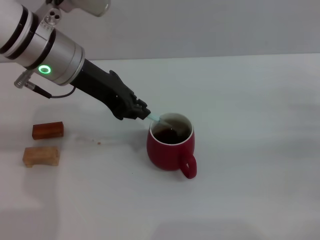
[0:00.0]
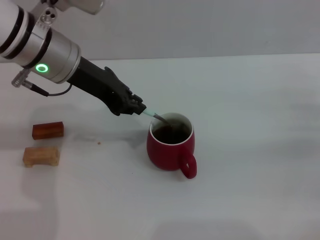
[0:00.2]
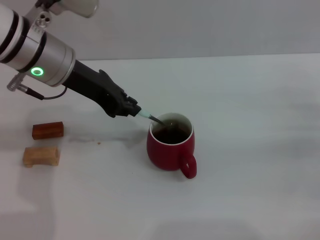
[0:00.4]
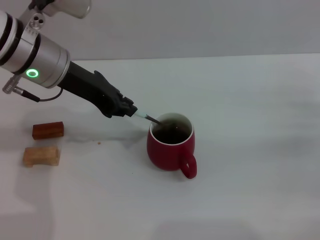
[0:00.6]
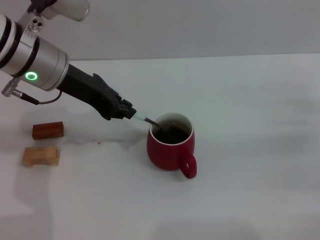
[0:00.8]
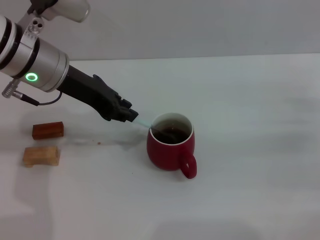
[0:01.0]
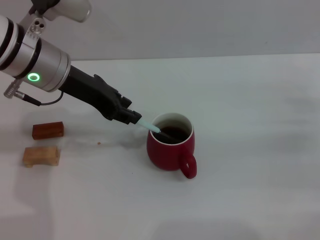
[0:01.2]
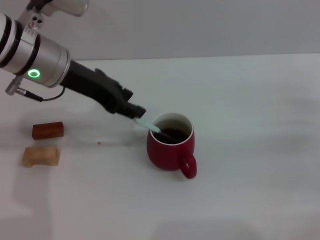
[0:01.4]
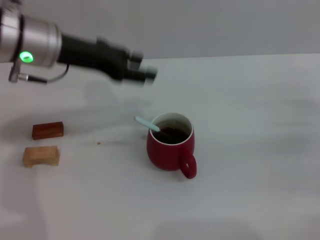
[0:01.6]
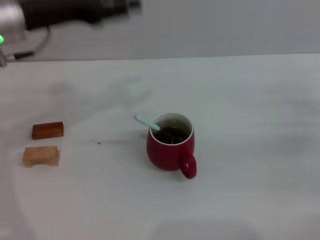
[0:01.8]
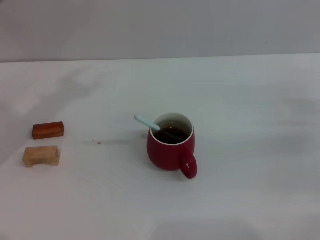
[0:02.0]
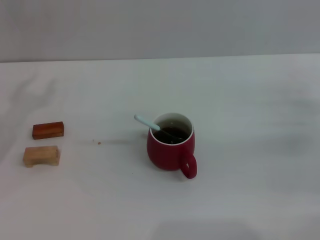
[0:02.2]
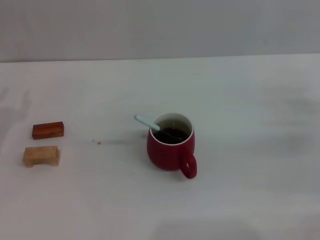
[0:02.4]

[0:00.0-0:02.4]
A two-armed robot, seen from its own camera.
Task of the whole recording: Move the red cup to the center, lift the blue spoon, stir it three times in the cup, and put the spoon into the cup.
0:00.0 to 0:01.2: The grippers move only a little.
0:01.2 to 0:02.4: The left gripper travels to the left, backward and downward by approximately 20 cm, and opens its fingers.

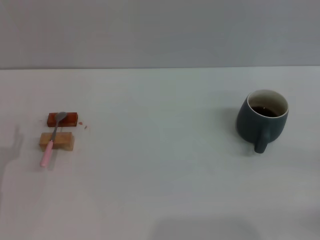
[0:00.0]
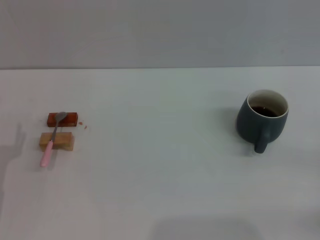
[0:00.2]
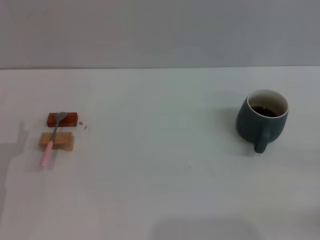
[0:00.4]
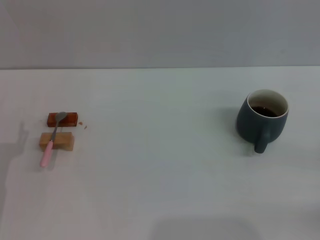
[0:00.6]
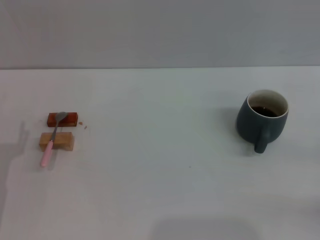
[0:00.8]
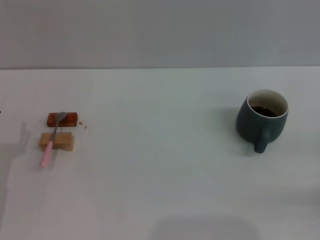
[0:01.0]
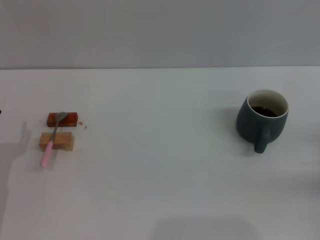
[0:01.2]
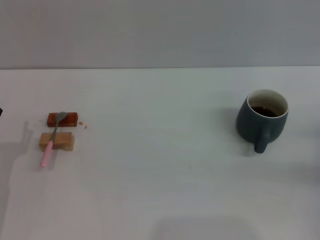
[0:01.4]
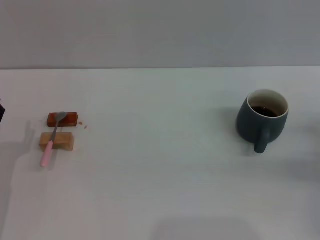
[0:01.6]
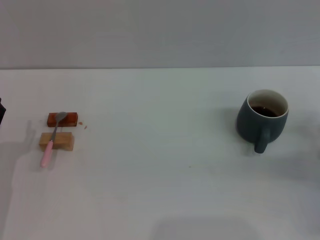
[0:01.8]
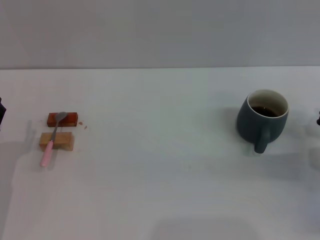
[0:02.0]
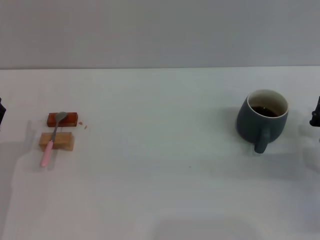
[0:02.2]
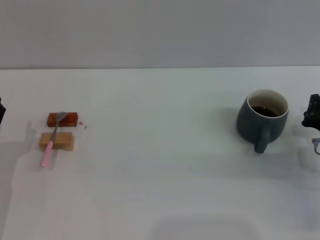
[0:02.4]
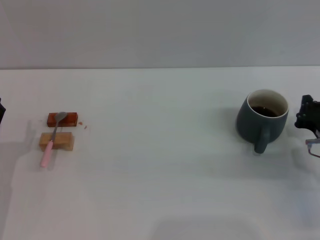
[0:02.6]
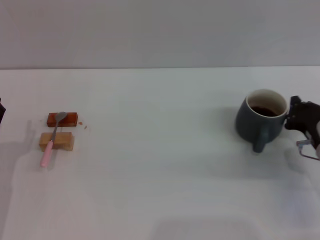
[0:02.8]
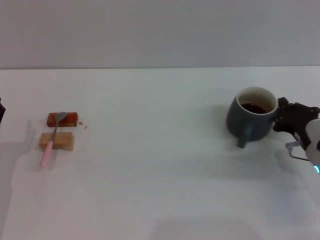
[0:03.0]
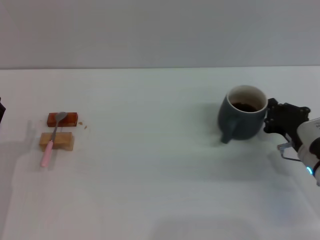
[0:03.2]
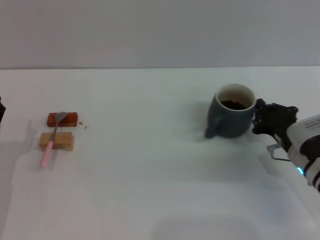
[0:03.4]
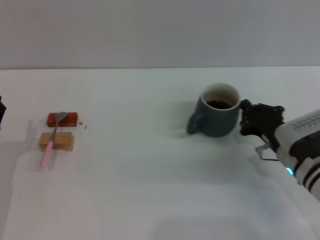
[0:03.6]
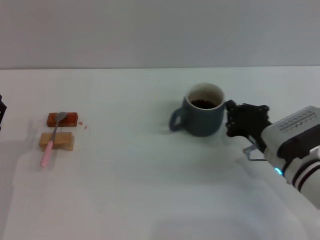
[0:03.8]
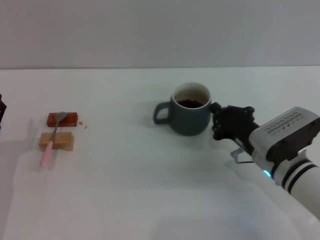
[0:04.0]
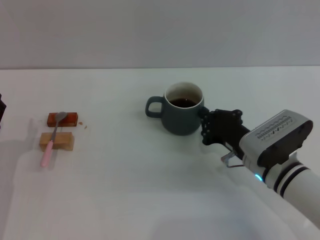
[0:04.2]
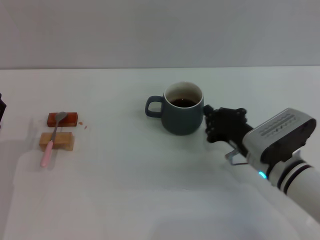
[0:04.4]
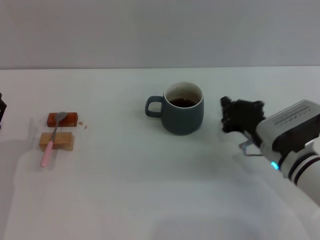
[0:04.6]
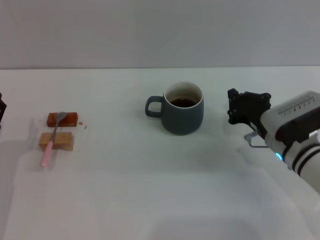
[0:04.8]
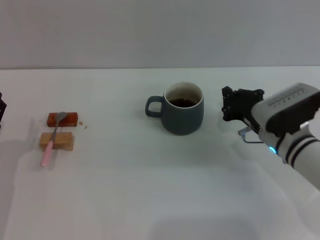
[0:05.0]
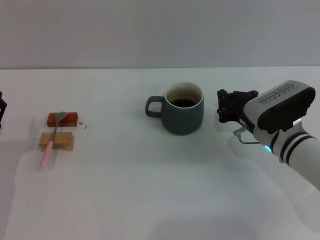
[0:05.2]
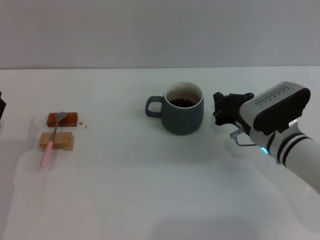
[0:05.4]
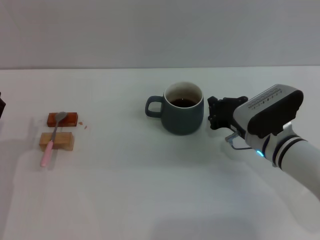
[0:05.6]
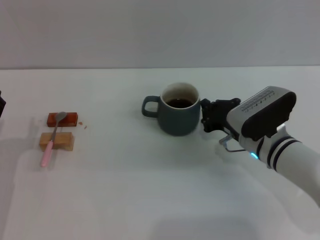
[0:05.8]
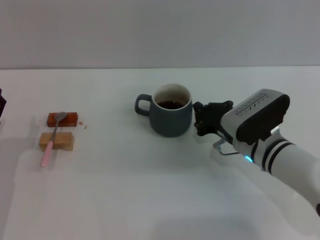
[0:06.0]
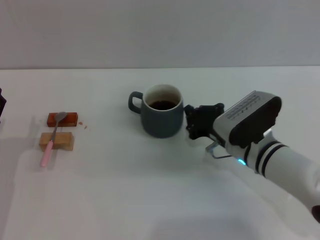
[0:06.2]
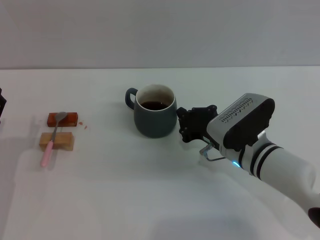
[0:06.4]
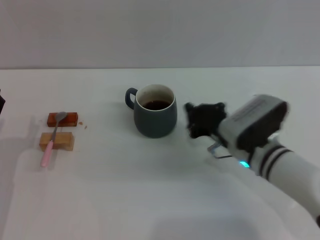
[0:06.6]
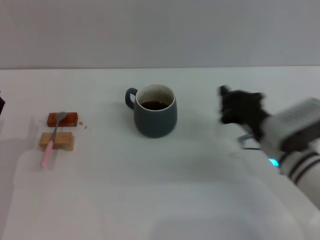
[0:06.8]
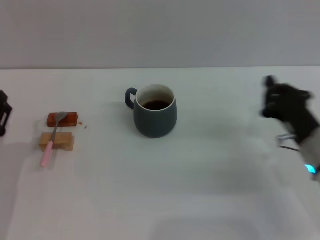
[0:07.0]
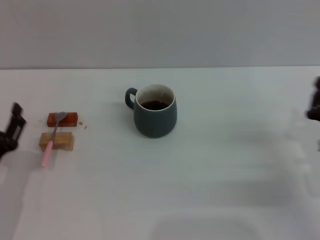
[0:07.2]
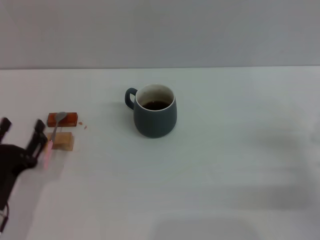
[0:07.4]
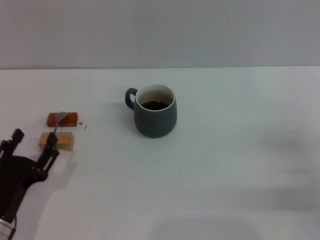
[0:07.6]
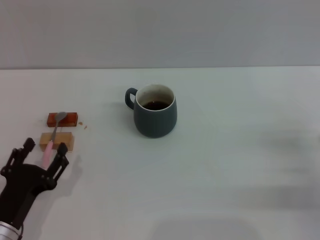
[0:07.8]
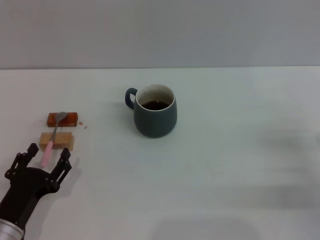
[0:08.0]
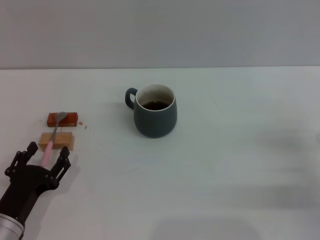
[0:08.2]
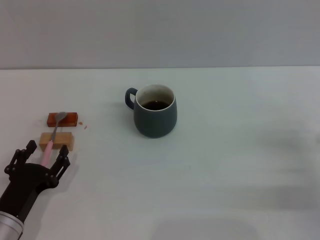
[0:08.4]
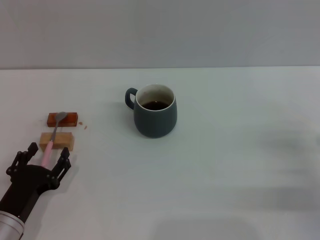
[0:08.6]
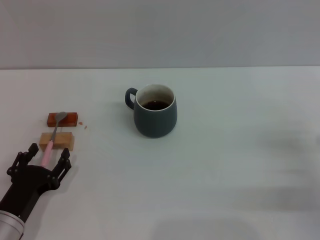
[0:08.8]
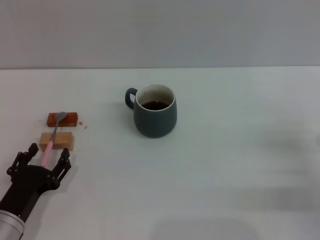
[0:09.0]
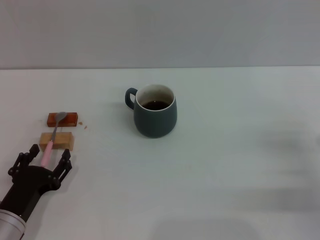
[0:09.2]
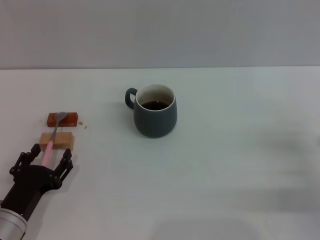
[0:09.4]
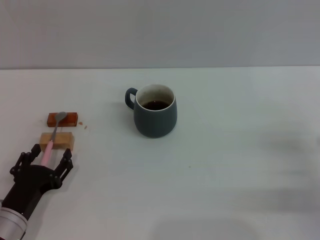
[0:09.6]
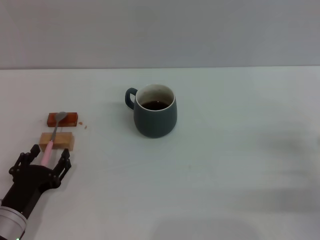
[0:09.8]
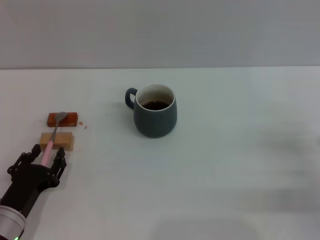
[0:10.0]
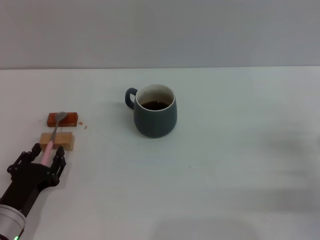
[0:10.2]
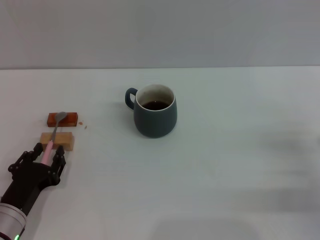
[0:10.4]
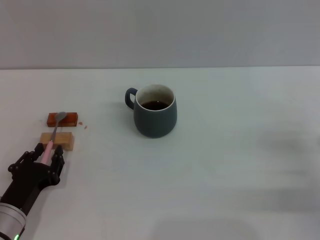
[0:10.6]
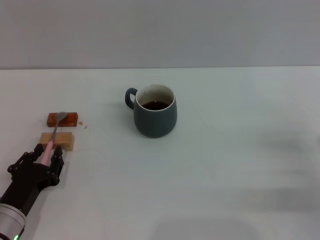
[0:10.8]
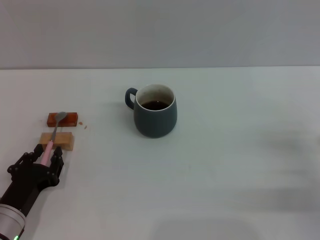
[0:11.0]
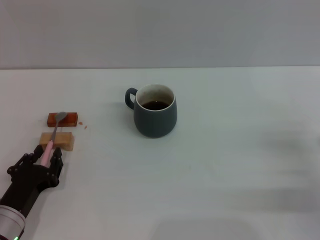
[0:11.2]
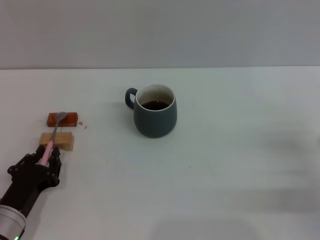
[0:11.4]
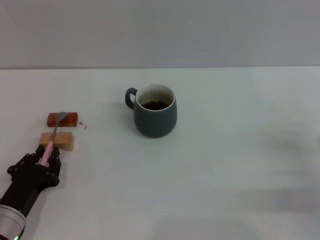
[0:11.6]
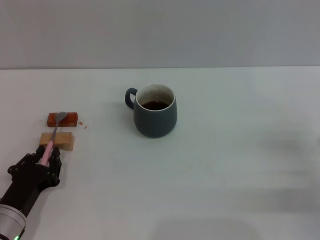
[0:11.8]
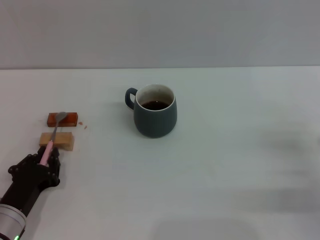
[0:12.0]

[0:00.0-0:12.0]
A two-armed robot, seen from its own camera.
Task of the whole recording: Move the grey cup to the center, lift the pink spoon, stir it three times in the cup, and put the spoon into the cup.
Step, 0:00.0 to 0:07.4: Move the cup with coffee to the center of view with the right gripper.
0:00.0 to 0:01.6: The right gripper shifts roughly 10 cm forward.
0:01.6 to 0:03.0: The right gripper moves to the left, approximately 10 cm.
0:03.0 to 0:04.4: The right gripper travels to the left by about 10 cm.
0:04.4 to 0:06.0: The grippers make only small movements.
0:06.0 to 0:07.6: The right gripper shifts approximately 20 cm to the right and backward; the left gripper travels backward by roughly 5 cm.
0:07.6 to 0:09.0: The grippers make only small movements.
0:09.0 to 0:10.4: The two grippers keep their place.
0:10.4 to 0:12.0: The left gripper closes its fingers.

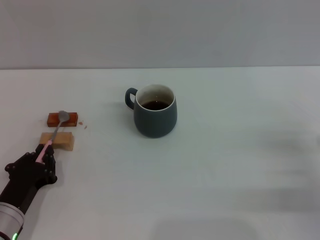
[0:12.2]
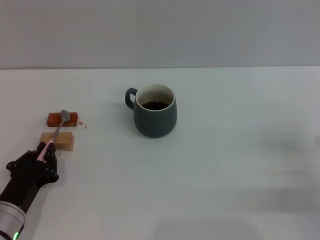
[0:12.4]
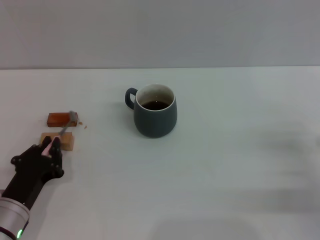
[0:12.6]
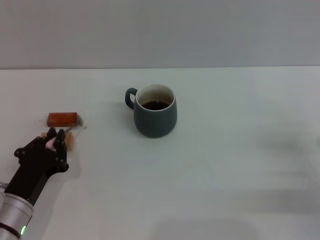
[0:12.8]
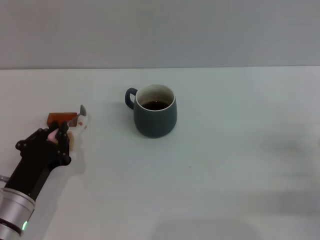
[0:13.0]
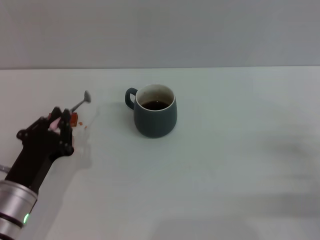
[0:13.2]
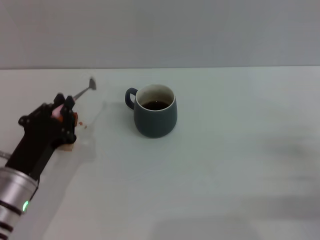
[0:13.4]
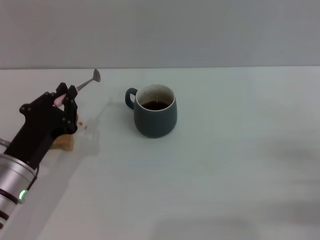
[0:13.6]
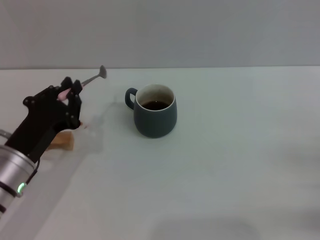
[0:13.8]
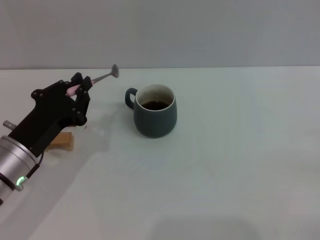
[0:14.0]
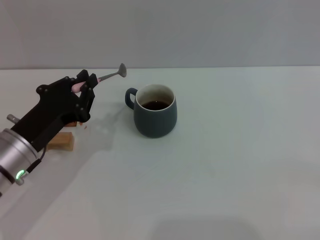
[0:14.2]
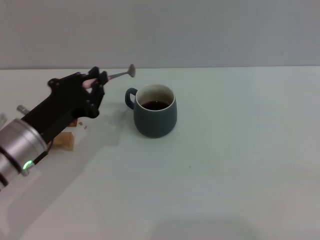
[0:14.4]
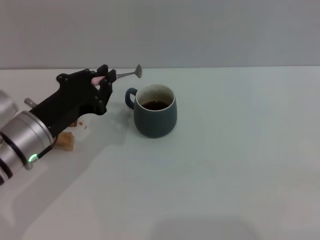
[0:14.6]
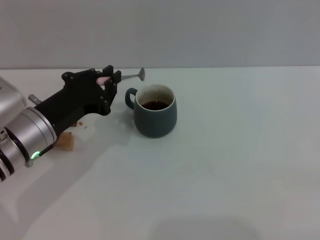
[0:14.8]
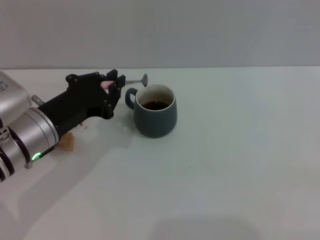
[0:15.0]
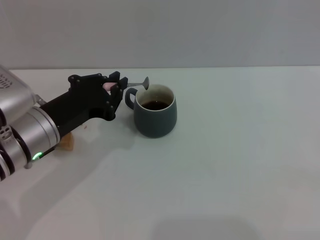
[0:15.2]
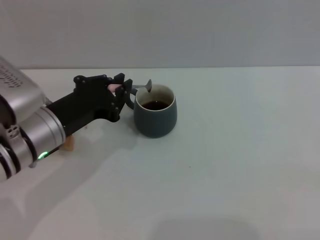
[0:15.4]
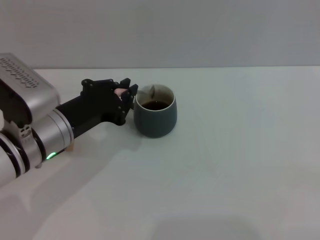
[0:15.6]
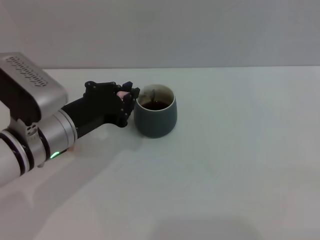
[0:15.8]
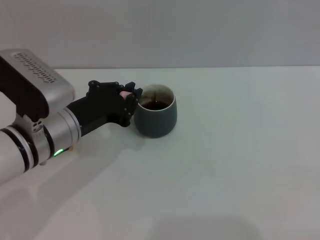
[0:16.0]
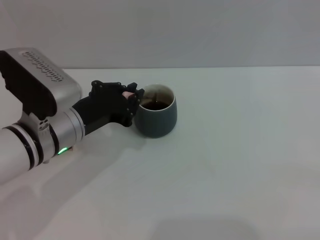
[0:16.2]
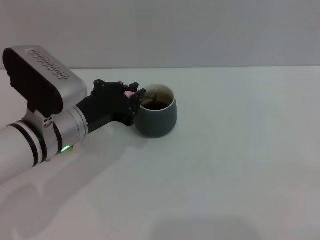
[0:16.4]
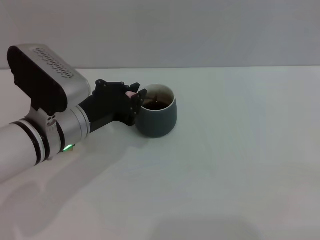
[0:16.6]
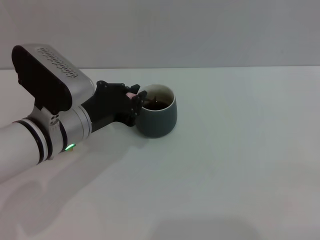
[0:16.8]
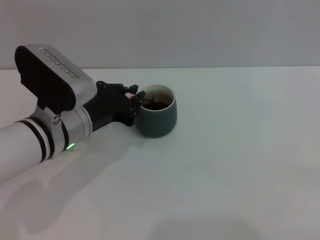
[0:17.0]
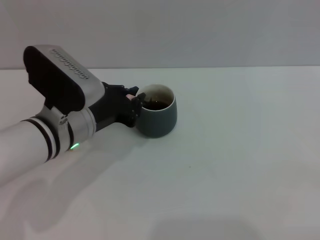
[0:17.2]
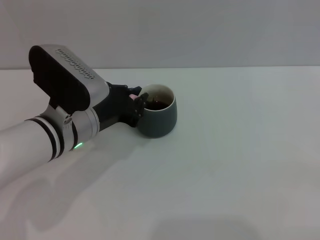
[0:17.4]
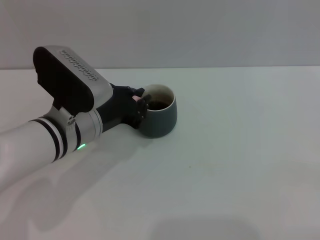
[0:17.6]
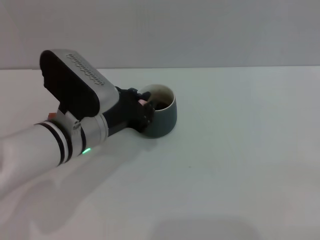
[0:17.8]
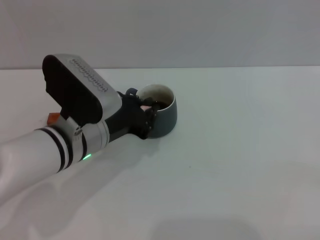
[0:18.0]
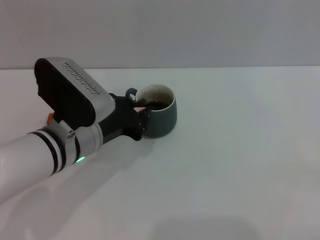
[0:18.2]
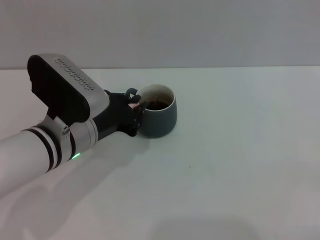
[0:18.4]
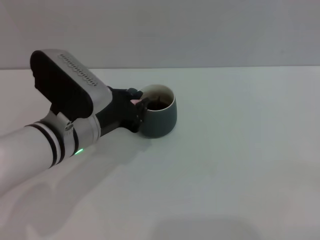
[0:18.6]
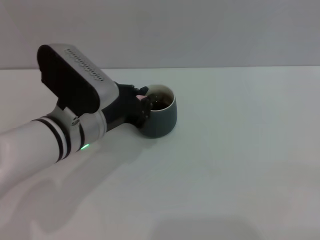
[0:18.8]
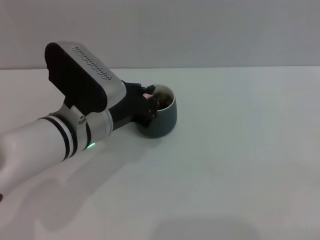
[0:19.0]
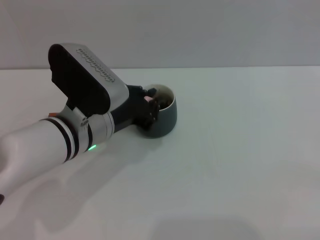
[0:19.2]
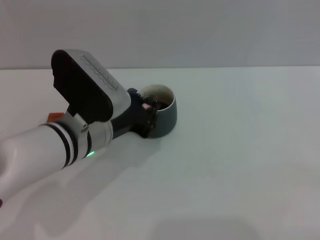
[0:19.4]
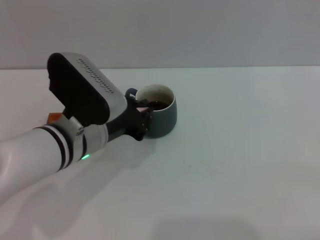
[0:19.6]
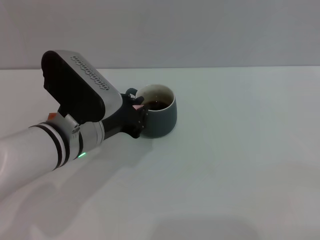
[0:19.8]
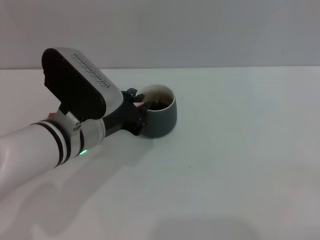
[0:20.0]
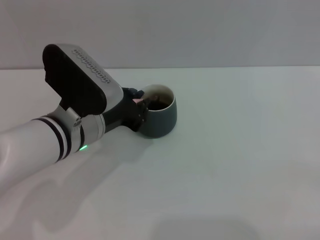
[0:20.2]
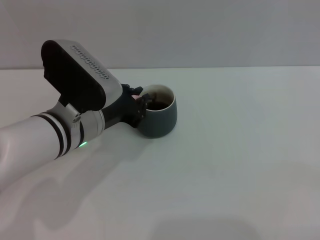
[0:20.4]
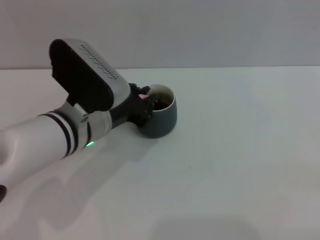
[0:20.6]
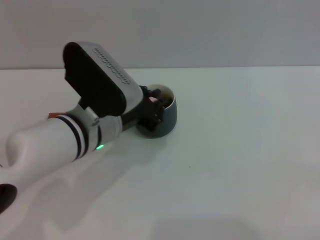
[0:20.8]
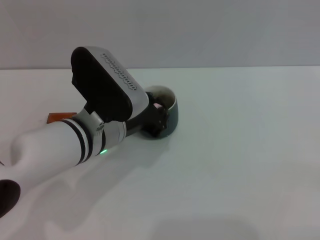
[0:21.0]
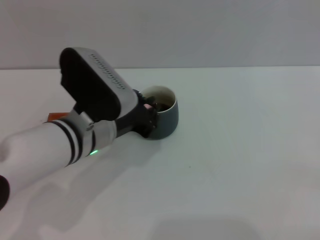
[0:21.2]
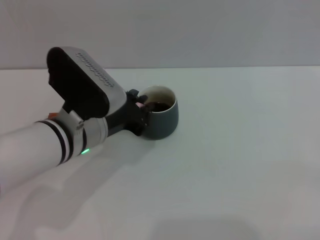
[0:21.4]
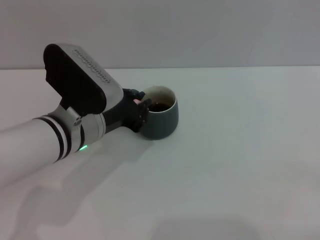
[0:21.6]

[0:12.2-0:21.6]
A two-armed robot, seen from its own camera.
Task of the whole recording: Move the grey cup to the center, lift the pink spoon, stir it three times in the cup, and put the spoon into the cup.
0:12.2 to 0:13.8: The left gripper is displaced upward by approximately 10 cm. The right gripper changes place by some 5 cm.
0:13.8 to 0:15.4: The right gripper ends up about 5 cm from where it was. Meanwhile the left gripper is displaced upward by roughly 5 cm.
0:15.4 to 0:18.4: The grippers stay close to where they were, moving slightly.
0:18.4 to 0:21.6: The grippers stay close to where they were, moving slightly.
